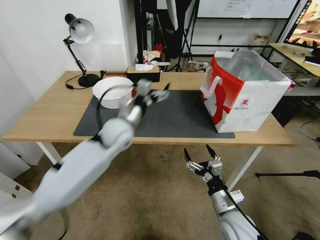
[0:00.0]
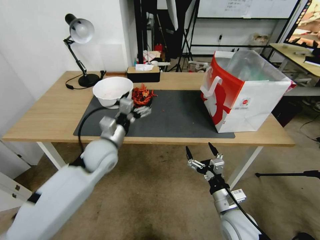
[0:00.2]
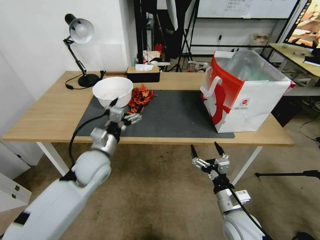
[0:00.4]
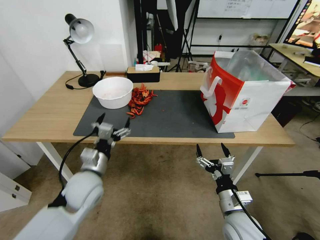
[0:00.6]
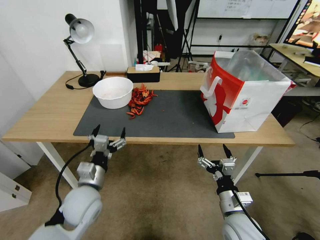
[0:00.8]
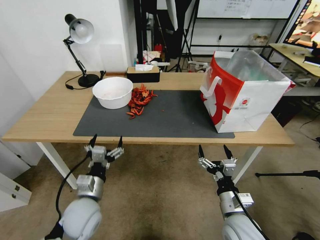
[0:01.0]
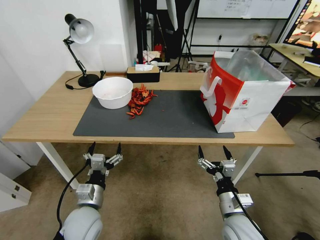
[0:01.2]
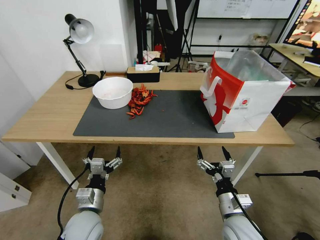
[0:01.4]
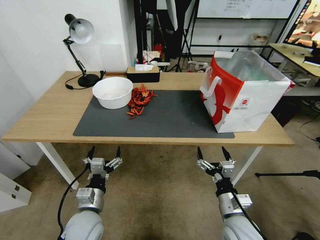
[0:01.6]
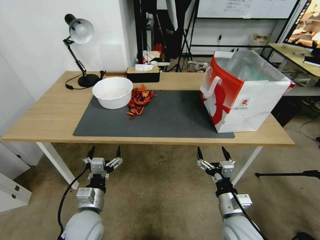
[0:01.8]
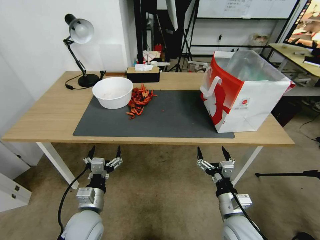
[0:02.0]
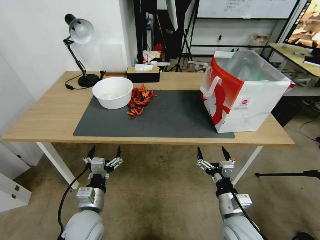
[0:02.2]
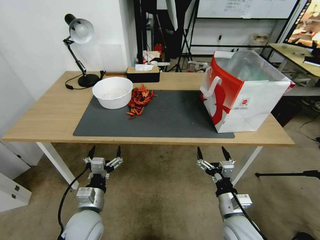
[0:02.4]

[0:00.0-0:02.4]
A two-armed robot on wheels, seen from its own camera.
Task of the whole recording: Close the takeout container lid, then place the container into the takeout bag.
0:00.0 to 0:01.2: The left gripper moves backward, downward and to the left, roughly 30 cm.
0:01.2 to 0:02.4: Both grippers stay put.

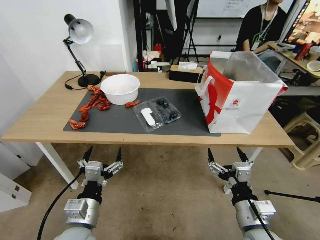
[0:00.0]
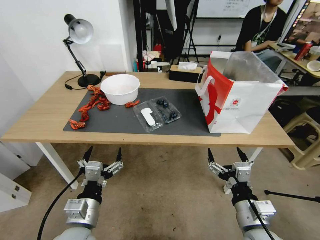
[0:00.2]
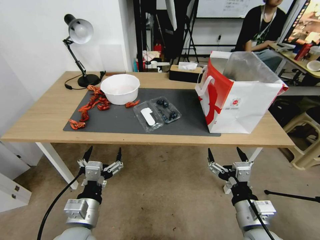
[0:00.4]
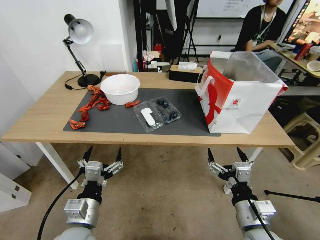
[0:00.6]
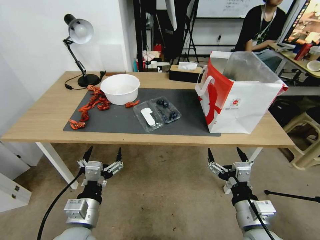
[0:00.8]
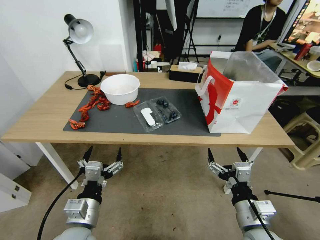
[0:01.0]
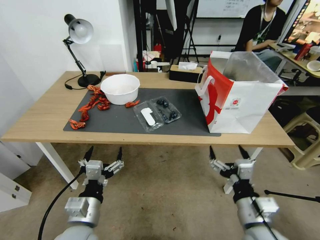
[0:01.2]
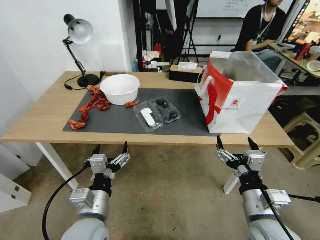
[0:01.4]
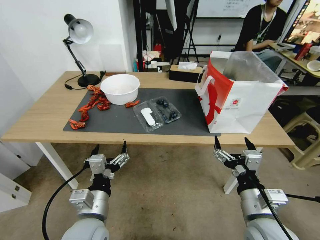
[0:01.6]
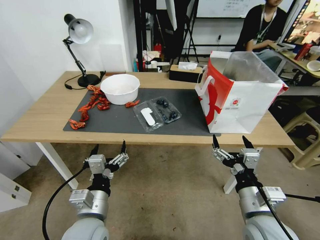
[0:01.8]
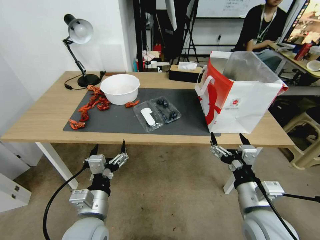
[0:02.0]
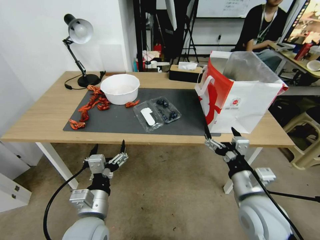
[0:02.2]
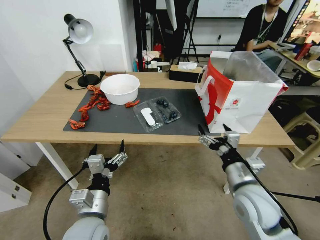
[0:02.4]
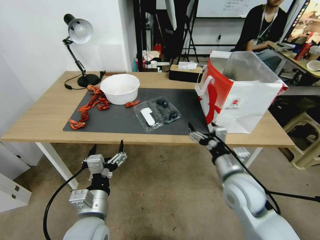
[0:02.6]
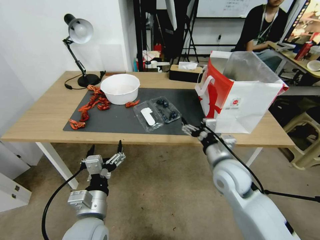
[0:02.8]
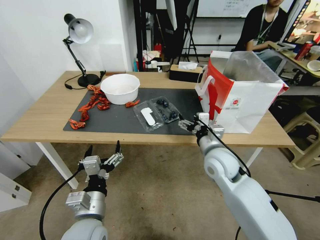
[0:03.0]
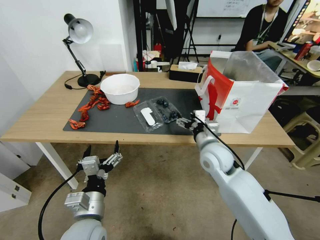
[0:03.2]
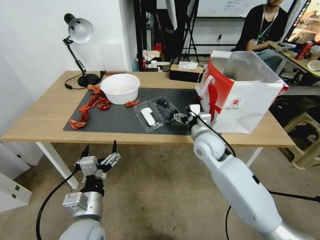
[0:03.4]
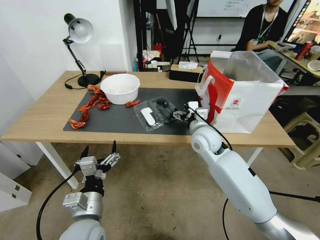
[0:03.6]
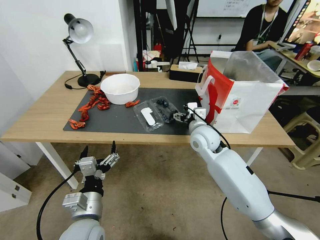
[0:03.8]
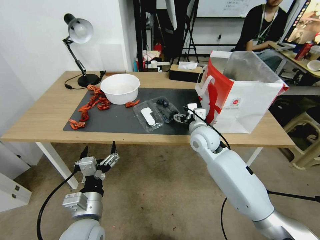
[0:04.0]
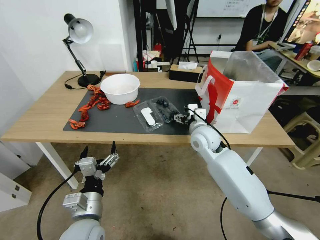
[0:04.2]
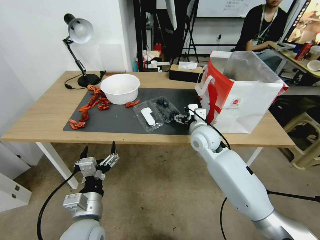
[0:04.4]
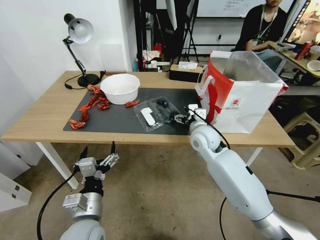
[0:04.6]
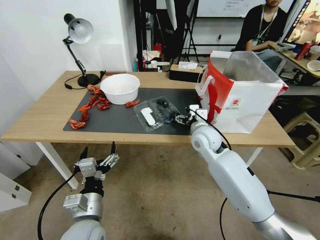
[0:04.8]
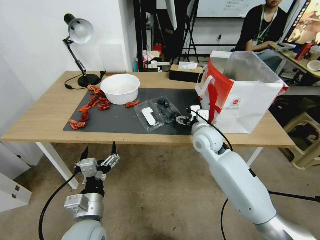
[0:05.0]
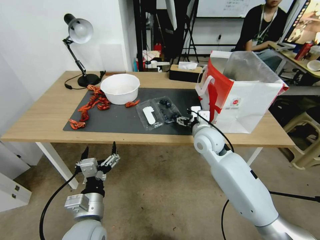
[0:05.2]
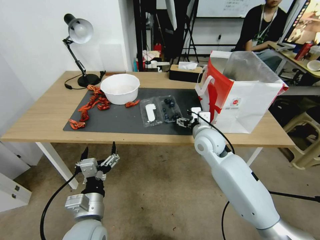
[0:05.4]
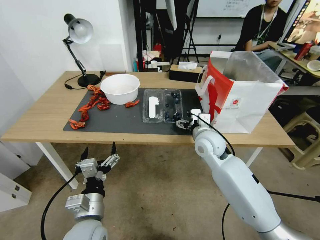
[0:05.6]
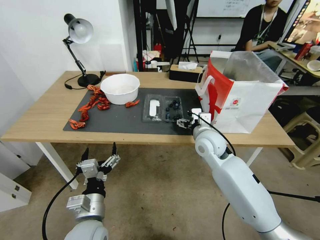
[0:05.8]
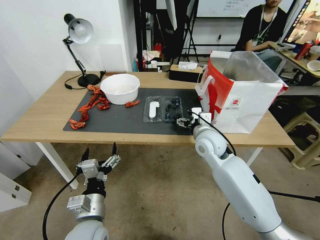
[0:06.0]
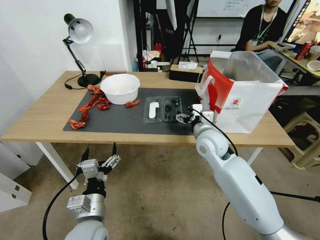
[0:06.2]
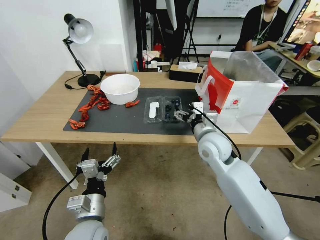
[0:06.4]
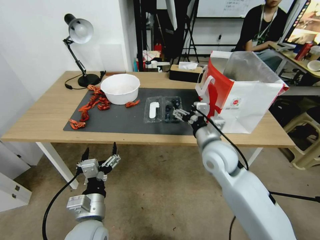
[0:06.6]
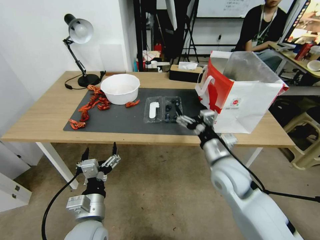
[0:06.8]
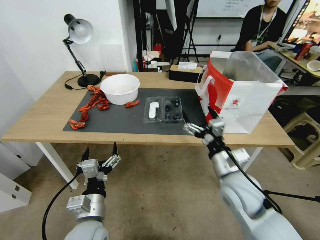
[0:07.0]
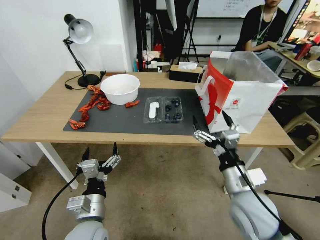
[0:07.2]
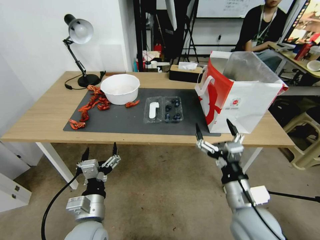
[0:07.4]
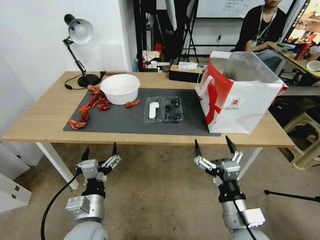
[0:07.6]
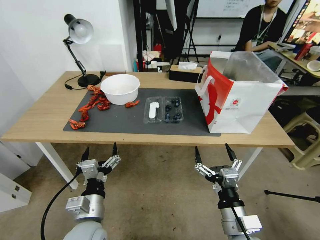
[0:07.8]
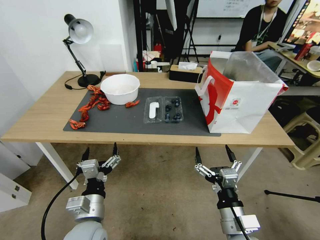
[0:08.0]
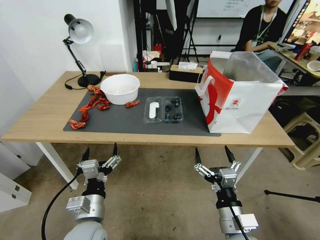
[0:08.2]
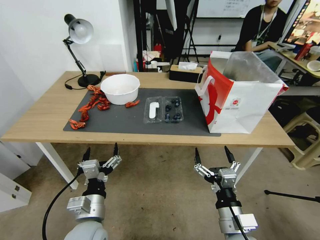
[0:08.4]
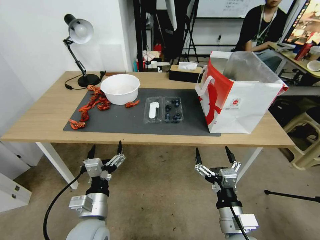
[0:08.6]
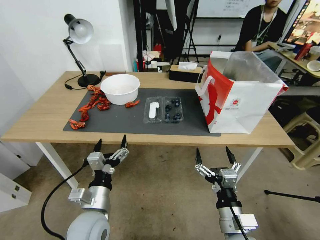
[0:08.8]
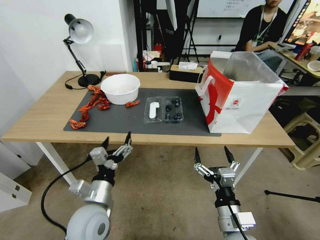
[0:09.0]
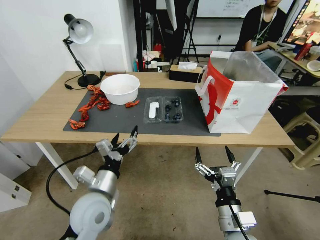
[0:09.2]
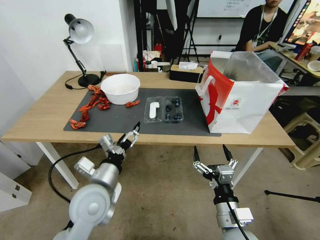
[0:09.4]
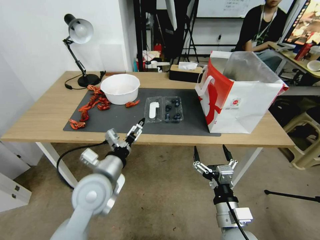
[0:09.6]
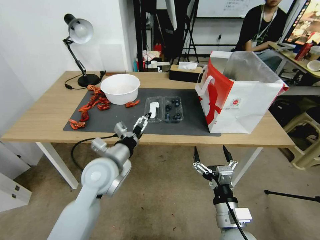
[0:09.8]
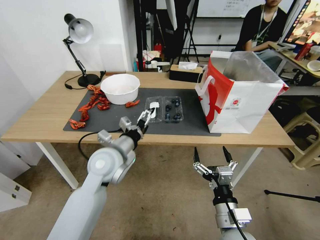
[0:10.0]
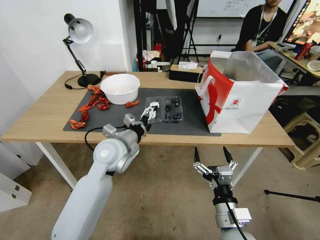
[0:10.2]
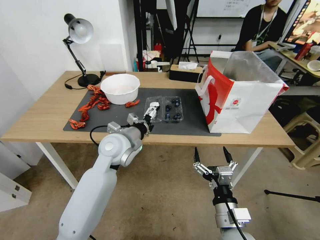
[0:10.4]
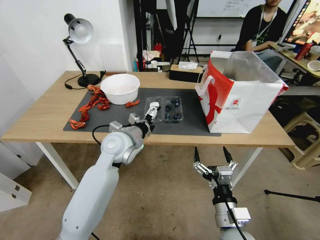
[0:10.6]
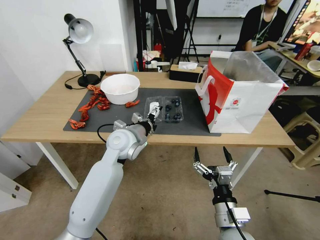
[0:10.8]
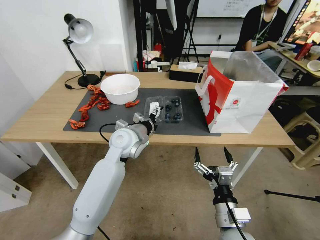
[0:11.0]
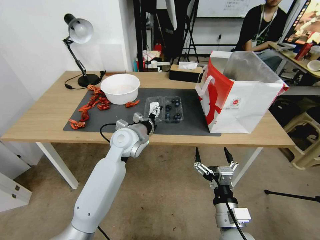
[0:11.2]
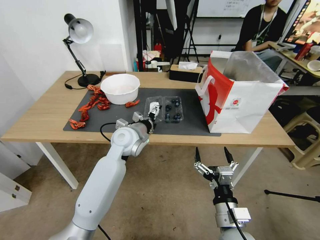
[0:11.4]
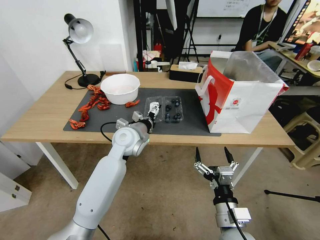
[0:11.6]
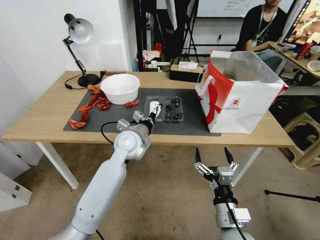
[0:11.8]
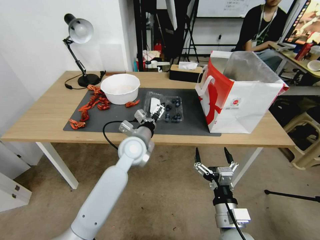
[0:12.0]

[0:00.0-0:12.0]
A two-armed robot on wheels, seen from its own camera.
Task of the whole recording: Close the takeout container lid, then place the container into the takeout bag.
0:01.6 to 0:03.0: The right gripper is displaced forward by some 20 cm.
0:03.0 to 0:04.4: The right gripper shifts approximately 10 cm forward.
0:04.4 to 0:06.0: The grippers make only small movements.
0:06.0 to 0:07.6: The right gripper is displaced backward by roughly 25 cm.
0:09.0 to 0:10.4: The left gripper shifts some 20 cm forward and upward.
0:10.4 to 0:12.0: The left gripper shifts by about 5 cm.

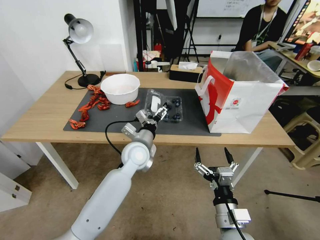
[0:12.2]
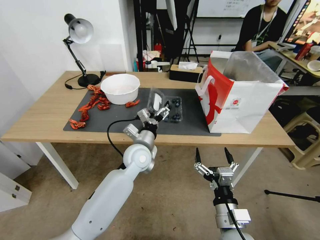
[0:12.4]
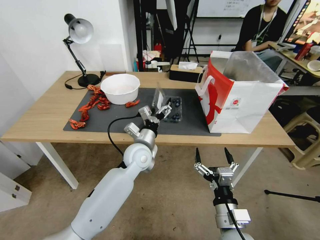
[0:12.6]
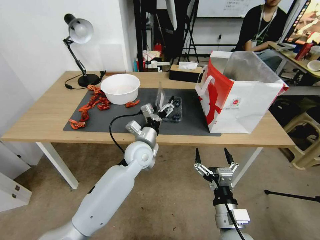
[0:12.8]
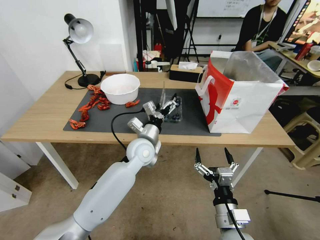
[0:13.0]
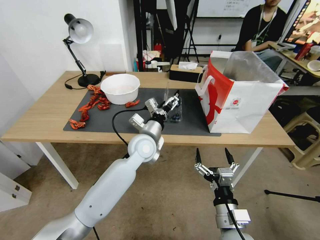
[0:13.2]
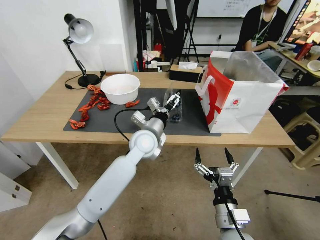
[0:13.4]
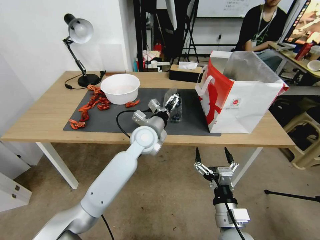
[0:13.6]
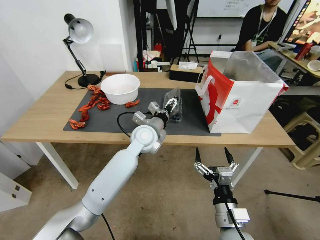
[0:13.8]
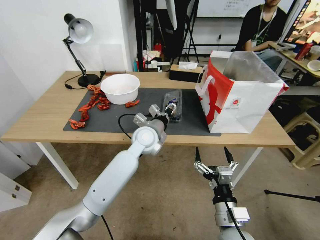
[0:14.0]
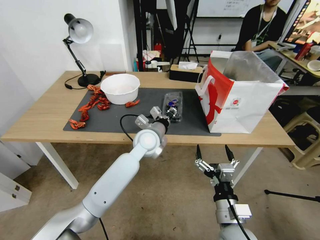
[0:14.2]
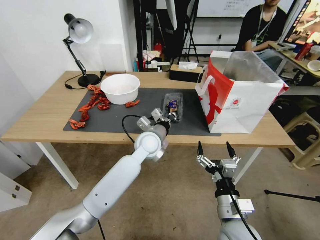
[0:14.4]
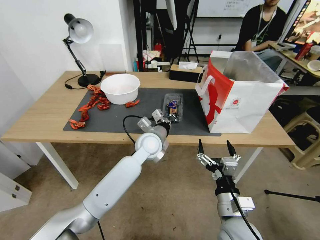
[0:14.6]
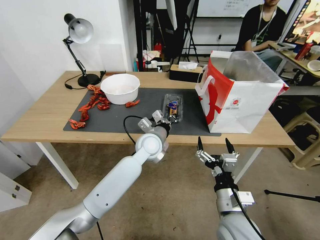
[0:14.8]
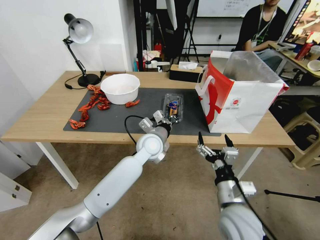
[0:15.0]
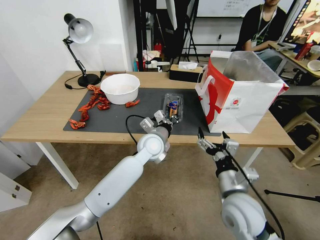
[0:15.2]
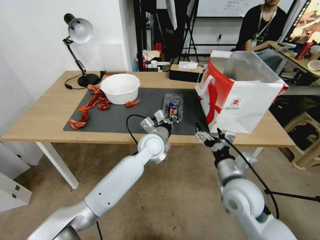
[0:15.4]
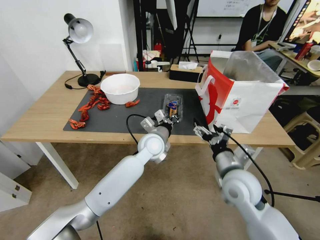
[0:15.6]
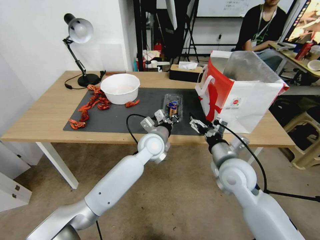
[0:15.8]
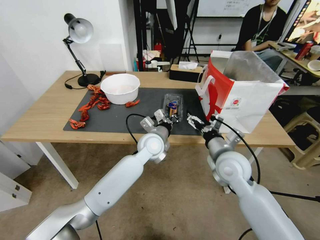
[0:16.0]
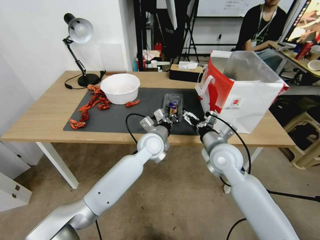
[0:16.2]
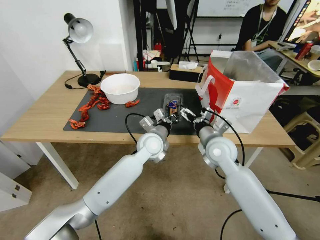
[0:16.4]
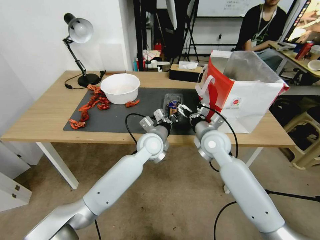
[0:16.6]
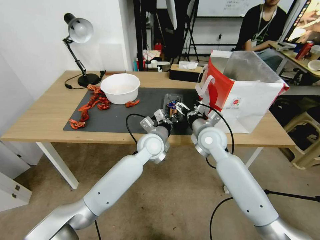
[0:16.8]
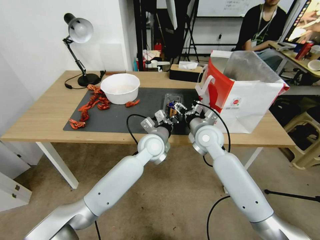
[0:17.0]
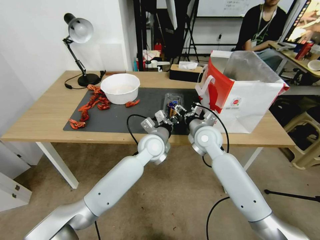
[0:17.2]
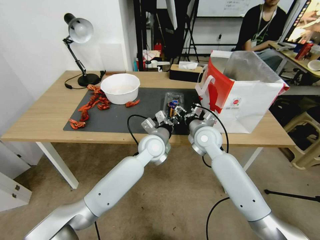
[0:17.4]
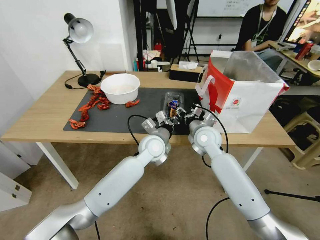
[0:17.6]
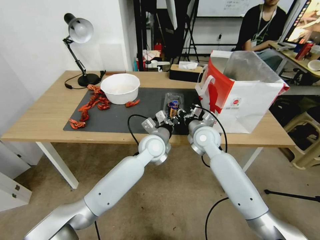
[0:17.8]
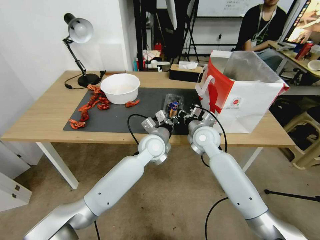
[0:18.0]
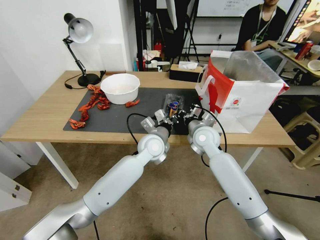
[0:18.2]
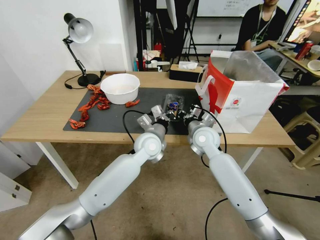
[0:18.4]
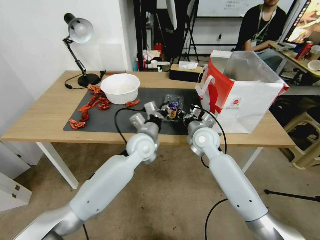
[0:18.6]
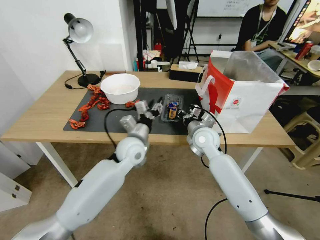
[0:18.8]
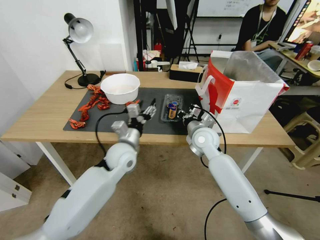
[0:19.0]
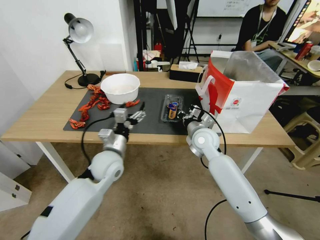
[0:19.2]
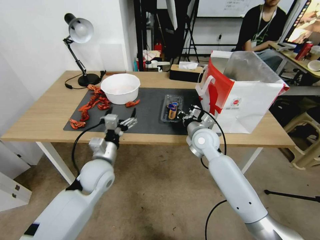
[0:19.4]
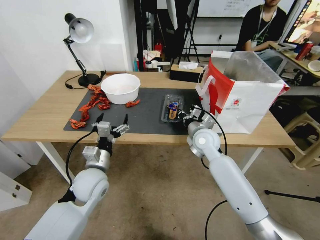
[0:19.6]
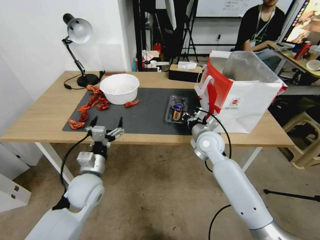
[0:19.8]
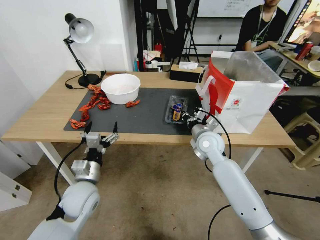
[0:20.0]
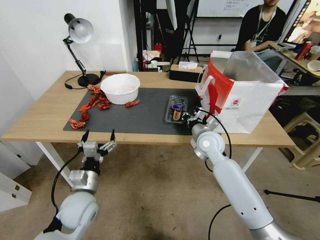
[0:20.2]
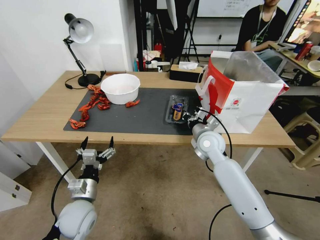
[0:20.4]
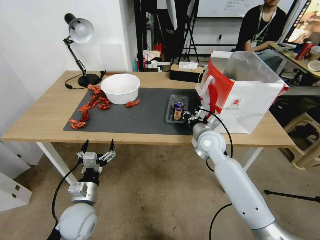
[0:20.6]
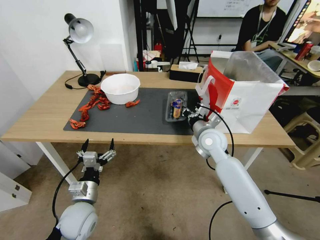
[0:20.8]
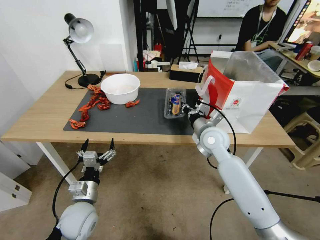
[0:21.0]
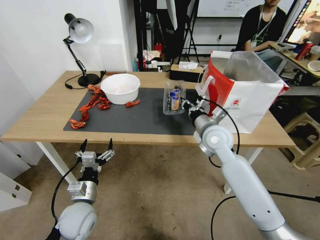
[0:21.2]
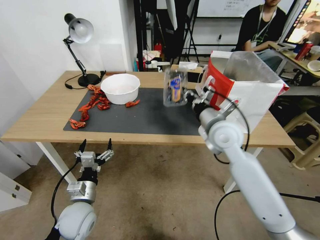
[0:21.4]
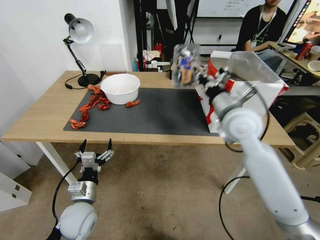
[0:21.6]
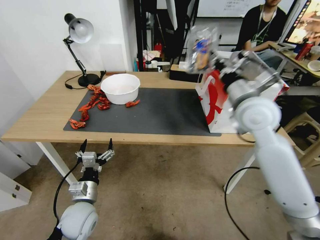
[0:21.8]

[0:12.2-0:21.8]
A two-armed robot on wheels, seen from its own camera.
Task of the whole recording: Close the takeout container lid, then place the container into the takeout bag.
0:12.2 to 0:13.8: The left gripper changes place by about 5 cm.
0:13.8 to 0:15.4: The left gripper closes; the right gripper is displaced forward and upward by some 15 cm.
0:15.4 to 0:17.0: The right gripper shifts roughly 20 cm forward.
0:17.0 to 0:18.6: The right gripper closes up.
0:18.6 to 0:20.2: The left gripper travels backward, to the left and downward by roughly 25 cm, and opens up.
0:20.2 to 0:21.8: The right gripper goes roughly 20 cm upward.
